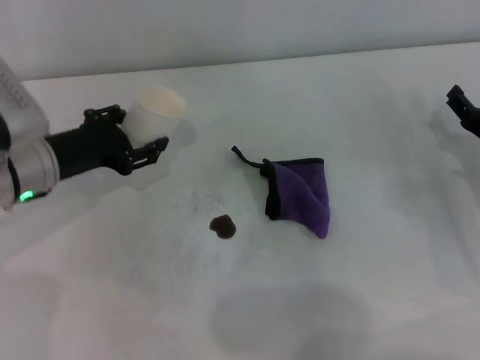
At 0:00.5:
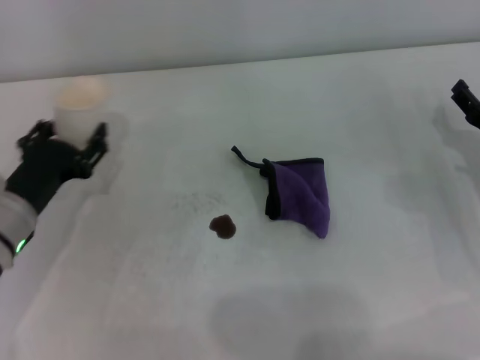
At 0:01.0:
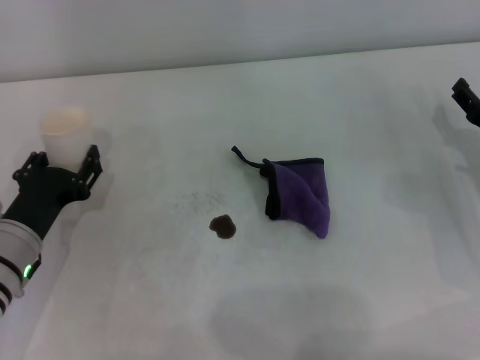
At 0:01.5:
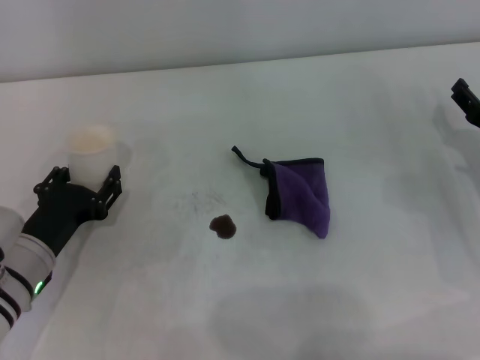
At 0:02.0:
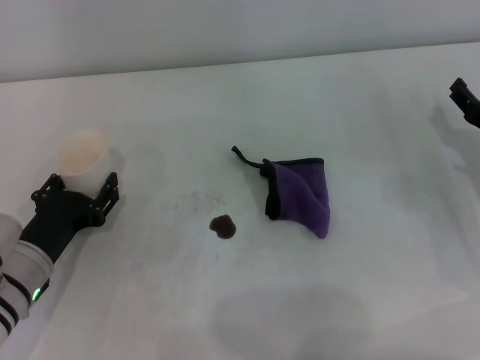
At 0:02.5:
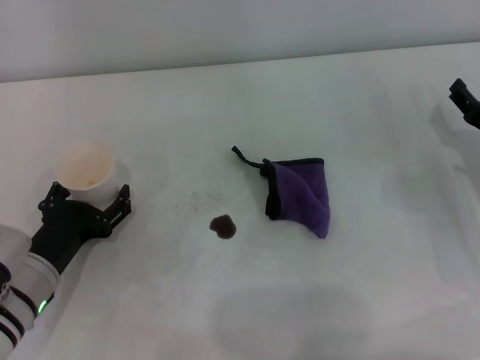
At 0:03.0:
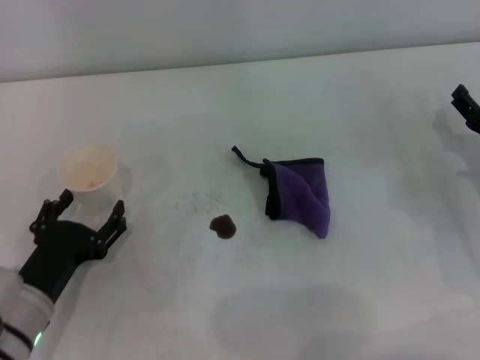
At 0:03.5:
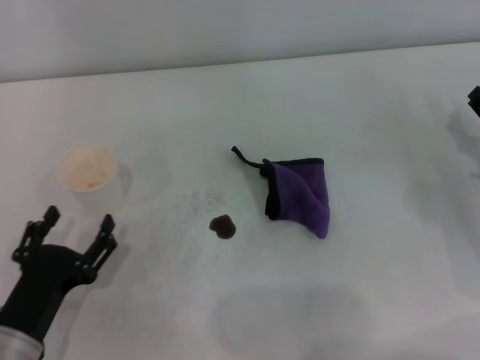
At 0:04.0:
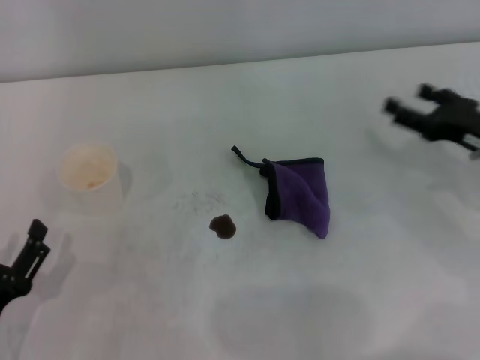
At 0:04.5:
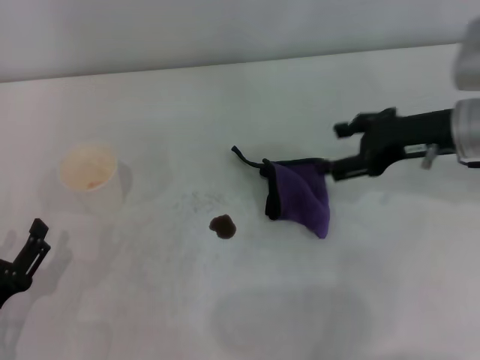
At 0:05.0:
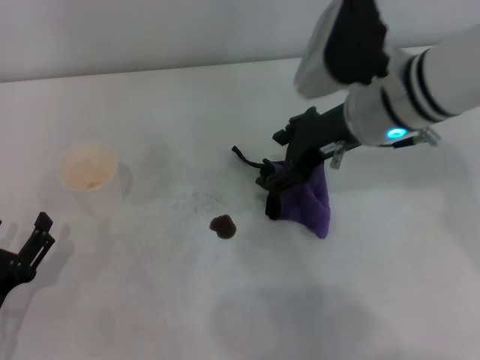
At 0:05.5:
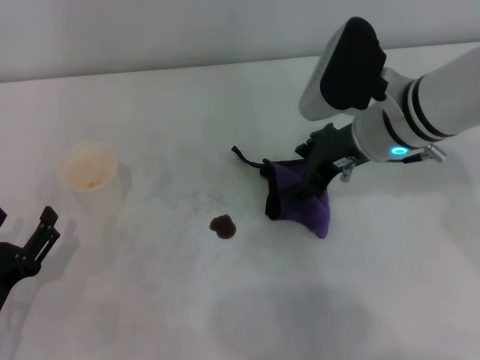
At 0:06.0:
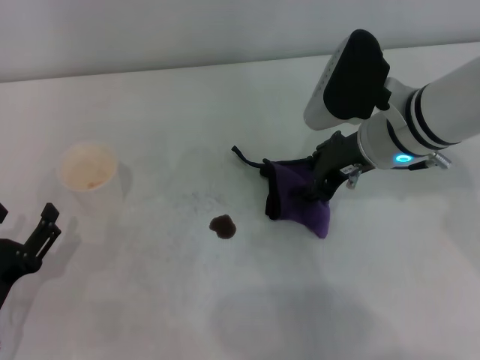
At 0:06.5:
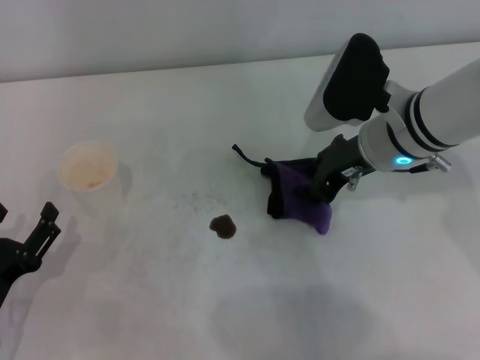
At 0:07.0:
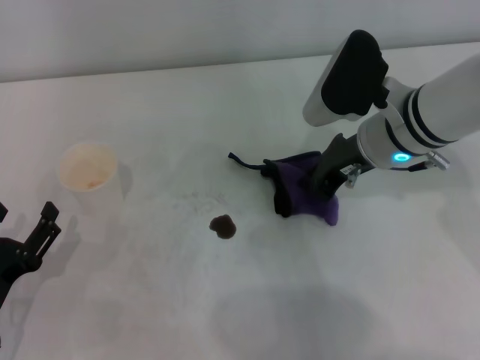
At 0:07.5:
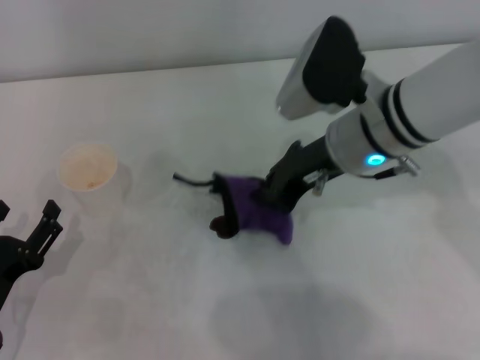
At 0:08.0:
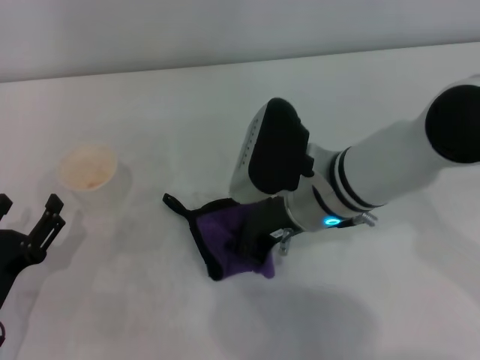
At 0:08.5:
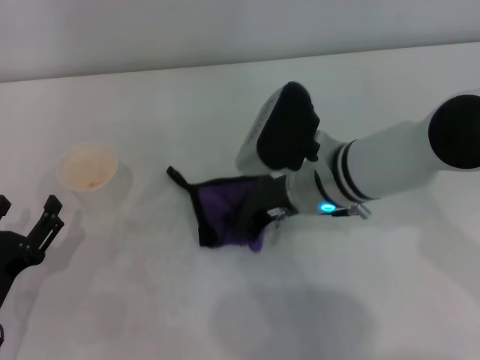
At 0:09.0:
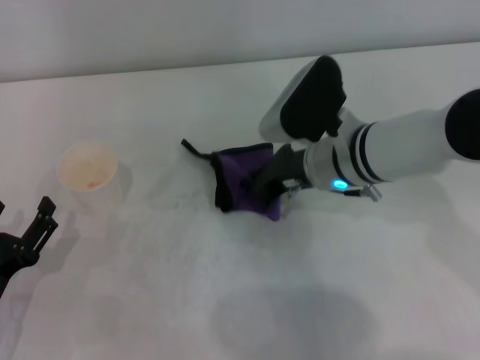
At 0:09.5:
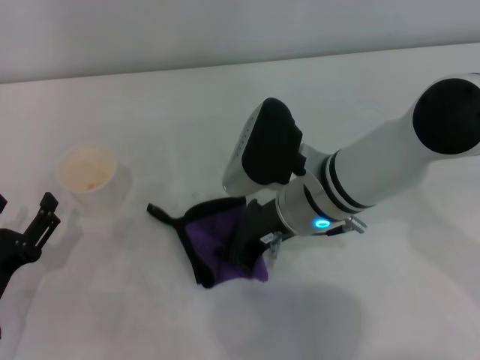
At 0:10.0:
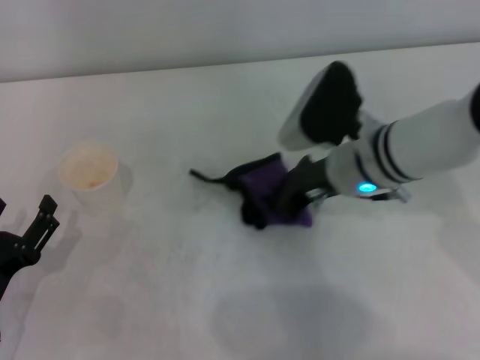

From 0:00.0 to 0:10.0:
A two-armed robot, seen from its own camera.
Step, from 0:00.0 to 0:02.0: Stand the paper cup upright with the left gripper.
Step, from 0:02.5 to 0:06.5: Grasp the rag with the right gripper.
From 0:00.0 to 0:02.0: The left gripper heads backward and downward, covering roughly 15 cm.
From 0:02.0 to 0:04.0: The left gripper shifts about 10 cm backward, and opens.
From 0:04.0 to 0:06.0: The right gripper goes some 15 cm to the left.
From 0:06.0 to 0:08.0: The right gripper shifts roughly 5 cm to the left, and closes.
From 0:08.0 to 0:10.0: The right gripper ends up roughly 5 cm from where it was.

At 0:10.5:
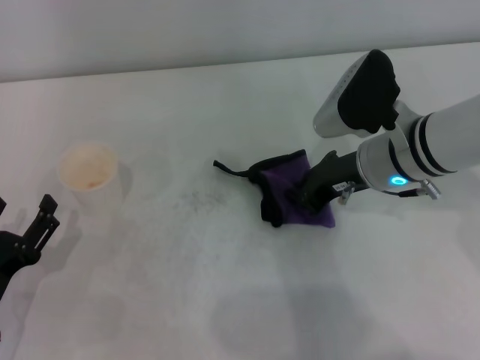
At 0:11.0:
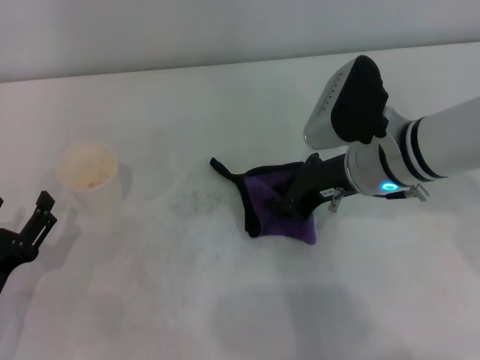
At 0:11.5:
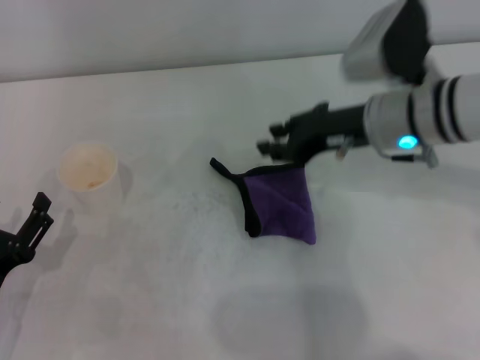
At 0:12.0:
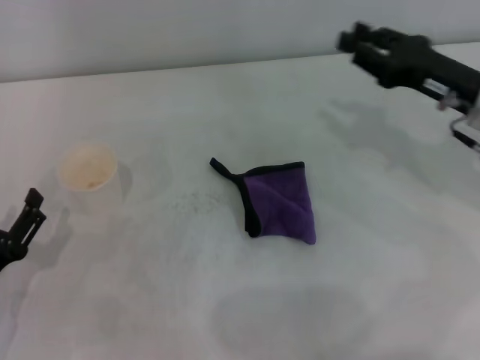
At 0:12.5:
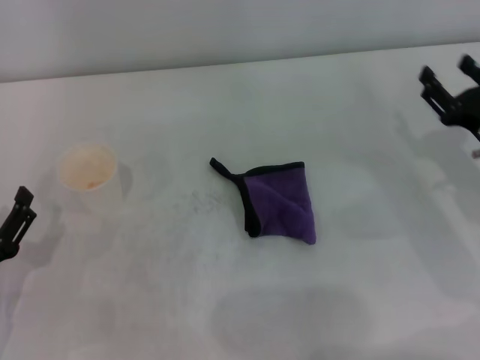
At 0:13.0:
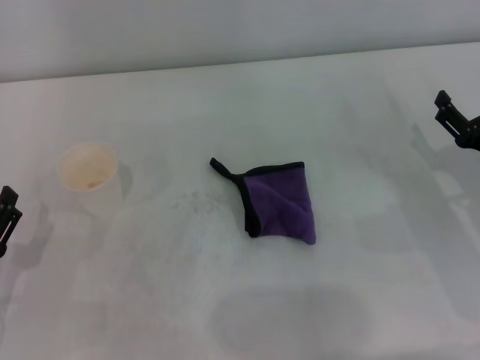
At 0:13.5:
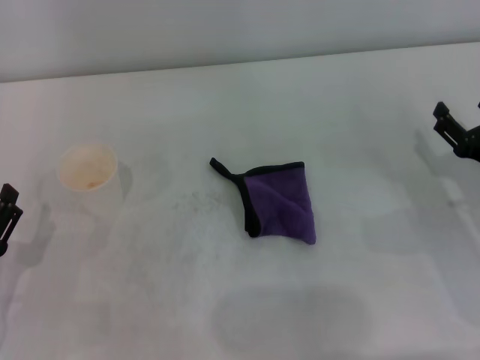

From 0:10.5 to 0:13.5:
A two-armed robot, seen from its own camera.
Step, from 0:10.5 to 0:11.0: Place the rag on the table with the right gripper.
From 0:10.5 to 0:12.0: The right gripper travels to the right by roughly 10 cm, and opens.
From 0:12.0 to 0:13.5: The right gripper moves downward and backward, about 10 cm, and opens its fingers.

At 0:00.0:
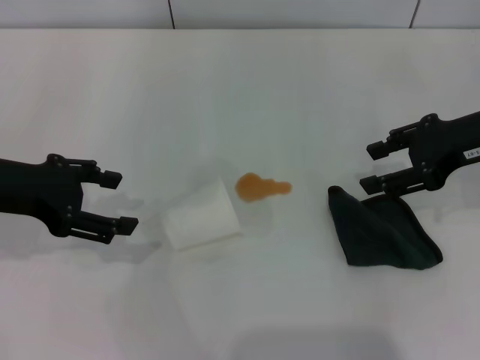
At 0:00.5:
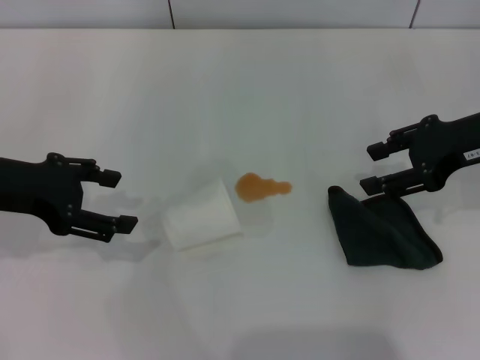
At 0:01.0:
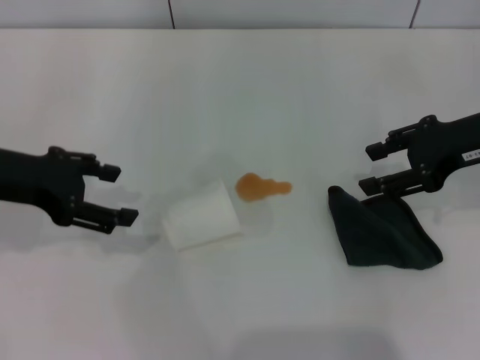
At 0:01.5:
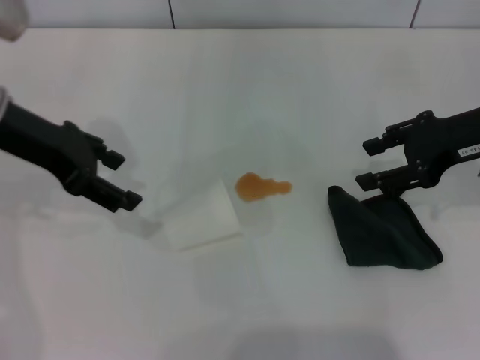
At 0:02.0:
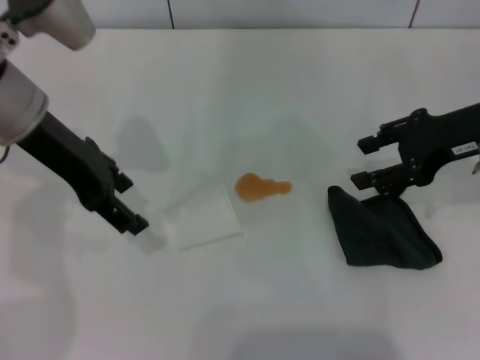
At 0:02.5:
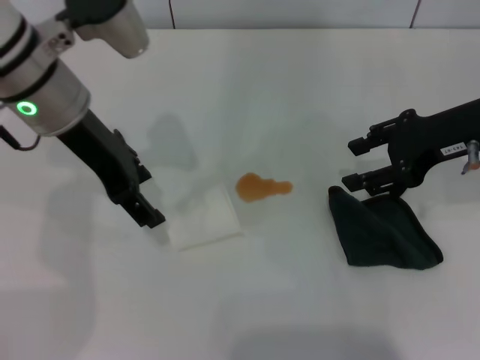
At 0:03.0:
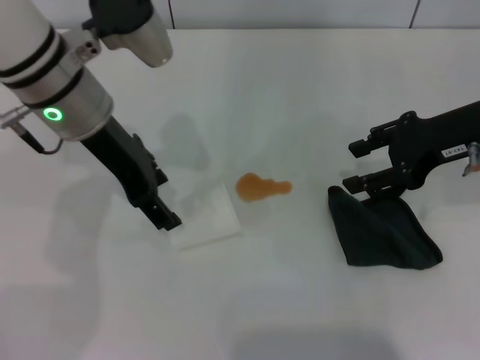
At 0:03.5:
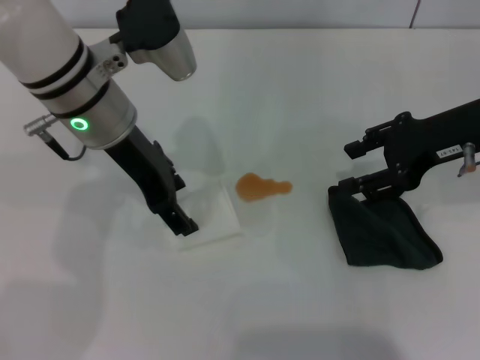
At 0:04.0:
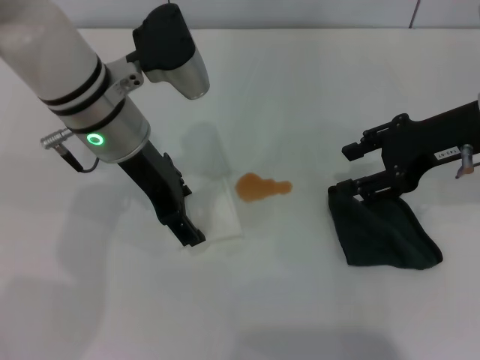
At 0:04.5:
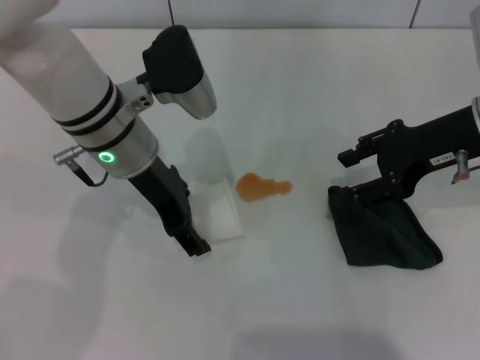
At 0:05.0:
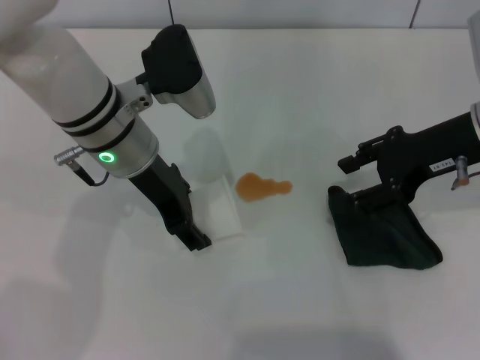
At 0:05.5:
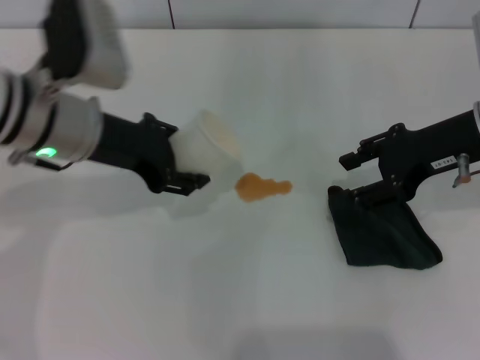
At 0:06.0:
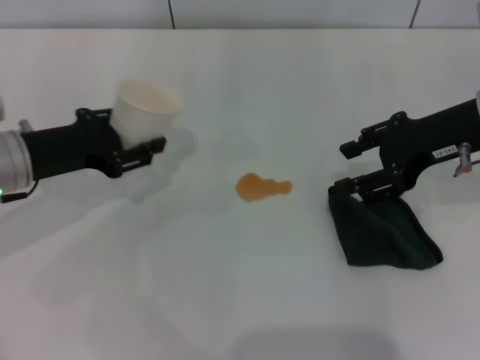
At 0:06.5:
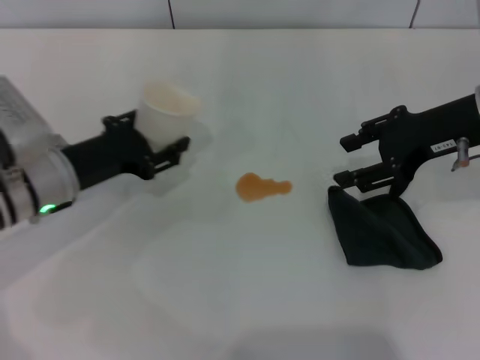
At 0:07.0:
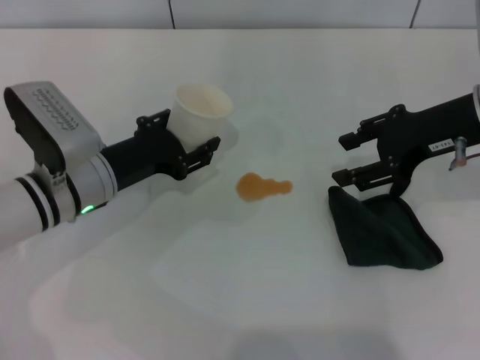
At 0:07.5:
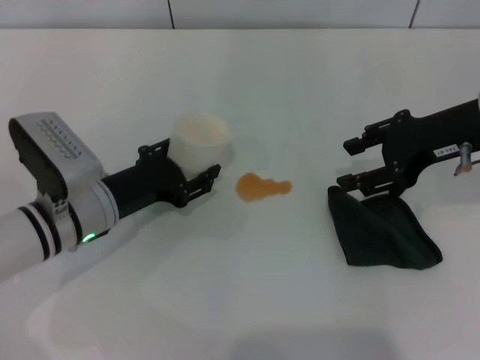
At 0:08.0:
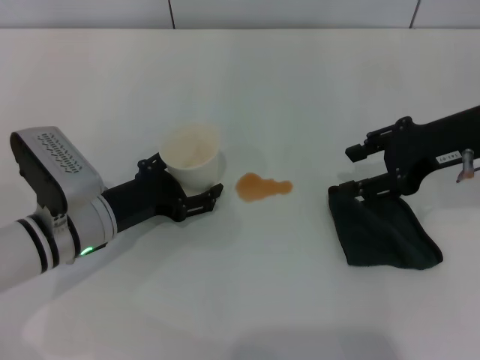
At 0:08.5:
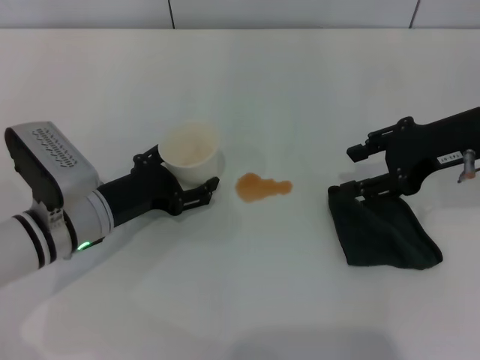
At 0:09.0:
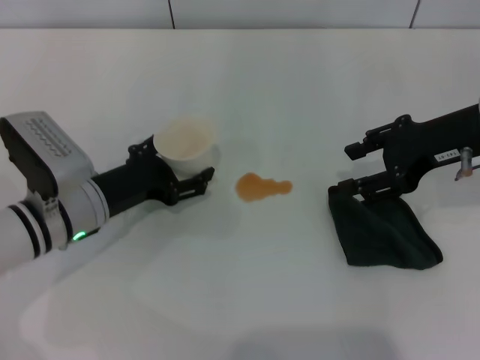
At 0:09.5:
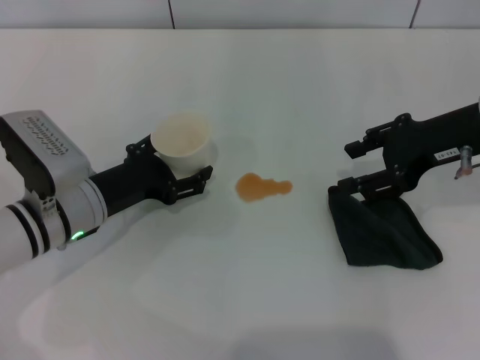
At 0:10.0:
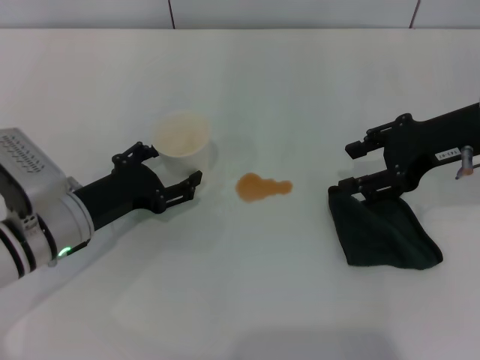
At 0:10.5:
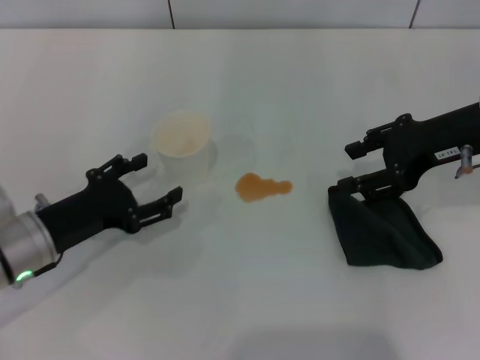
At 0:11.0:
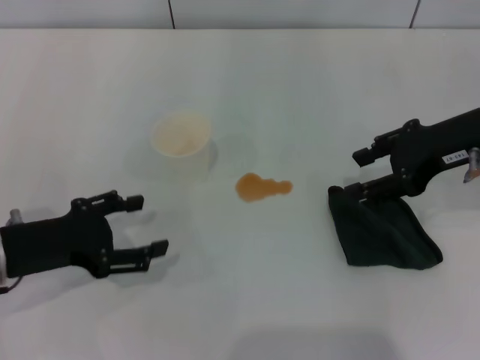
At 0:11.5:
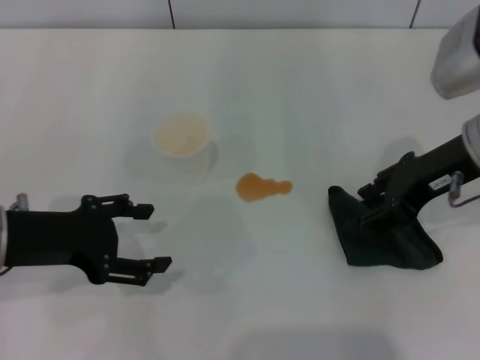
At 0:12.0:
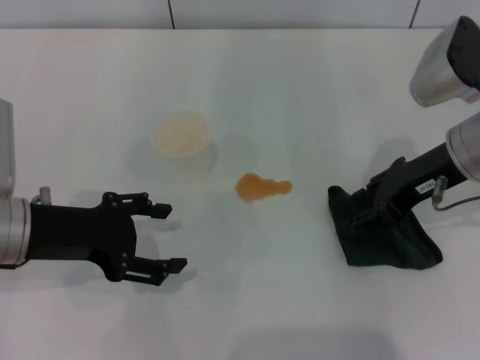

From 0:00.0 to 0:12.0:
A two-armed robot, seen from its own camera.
Step, from 0:00.0 to 0:04.5: Grasp the paper cup with the left gripper.
Step, from 0:05.0 to 0:10.5: Stand the paper cup upright with the left gripper.
From 0:00.0 to 0:02.0: The left gripper shifts some 10 cm to the right and forward.
From 0:02.0 to 0:04.0: The left gripper travels to the right by about 10 cm.
From 0:04.0 to 0:06.0: The left gripper shifts approximately 15 cm to the left and downward, and closes its fingers.
From 0:06.0 to 0:08.0: The left gripper moves downward and to the right, roughly 10 cm, and opens its fingers.
From 0:08.0 to 0:10.0: The left gripper opens up.
From 0:10.0 to 0:12.0: The left gripper heads upward, covering about 10 cm.
